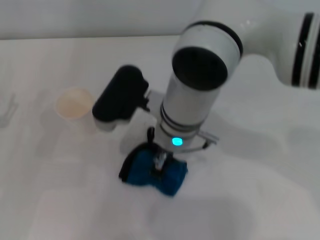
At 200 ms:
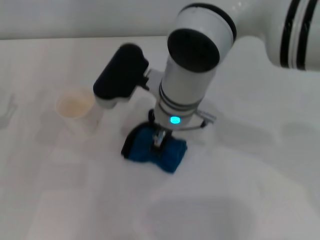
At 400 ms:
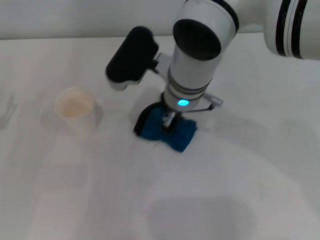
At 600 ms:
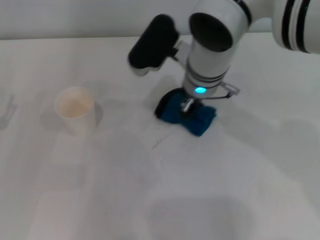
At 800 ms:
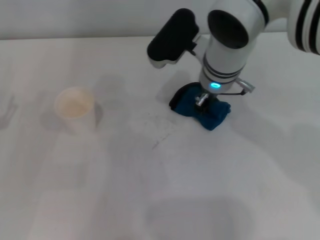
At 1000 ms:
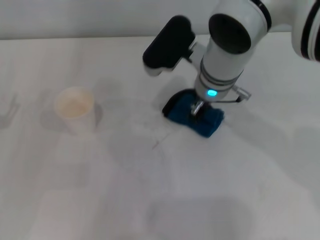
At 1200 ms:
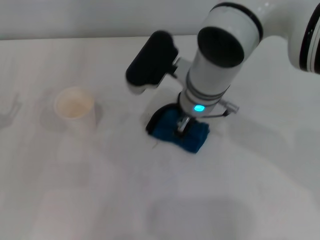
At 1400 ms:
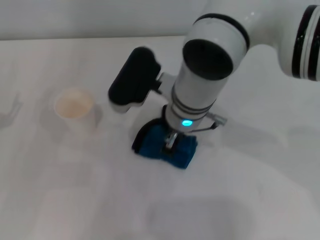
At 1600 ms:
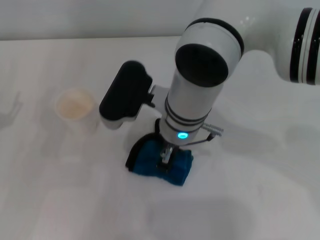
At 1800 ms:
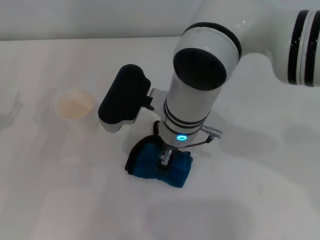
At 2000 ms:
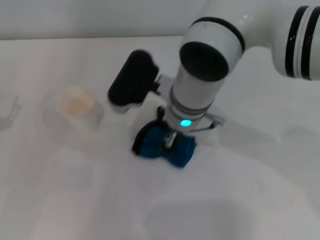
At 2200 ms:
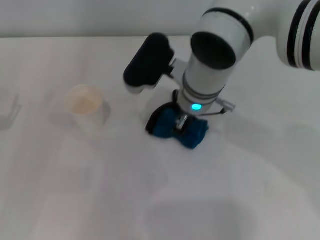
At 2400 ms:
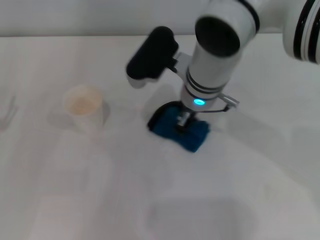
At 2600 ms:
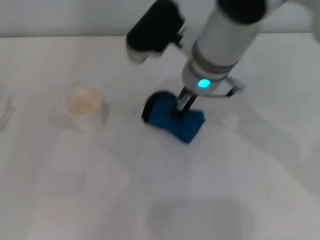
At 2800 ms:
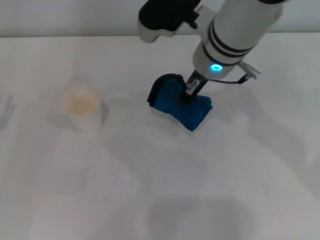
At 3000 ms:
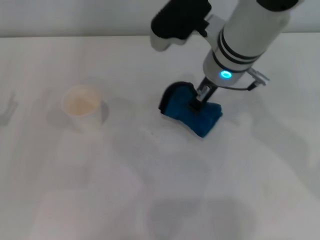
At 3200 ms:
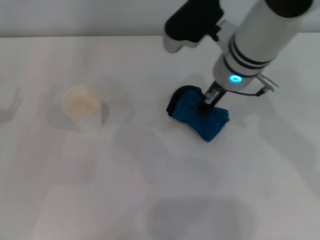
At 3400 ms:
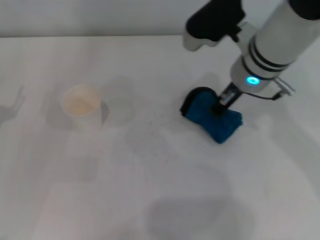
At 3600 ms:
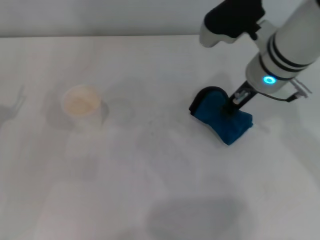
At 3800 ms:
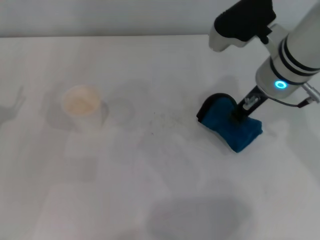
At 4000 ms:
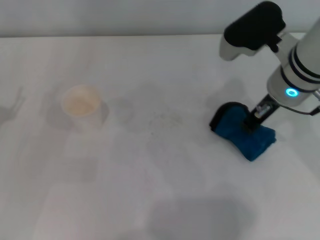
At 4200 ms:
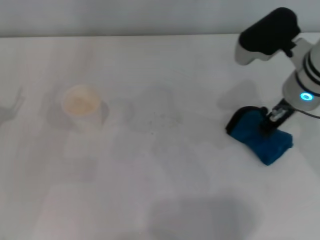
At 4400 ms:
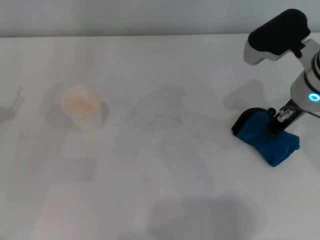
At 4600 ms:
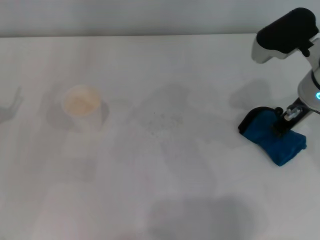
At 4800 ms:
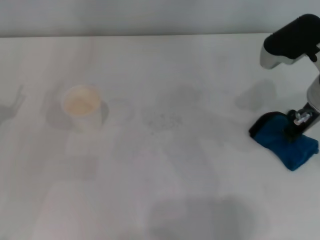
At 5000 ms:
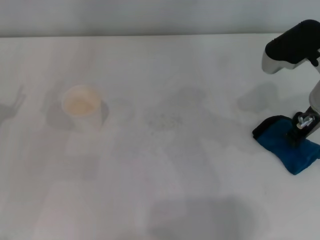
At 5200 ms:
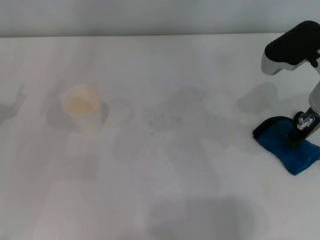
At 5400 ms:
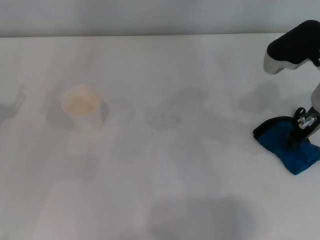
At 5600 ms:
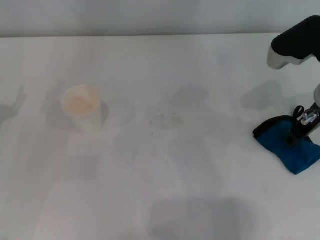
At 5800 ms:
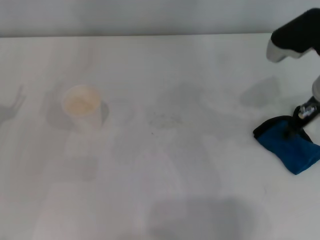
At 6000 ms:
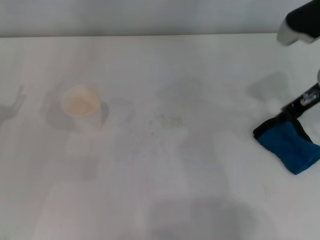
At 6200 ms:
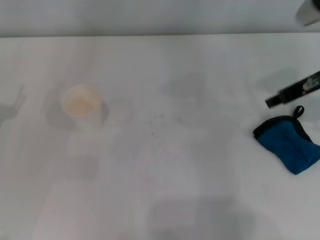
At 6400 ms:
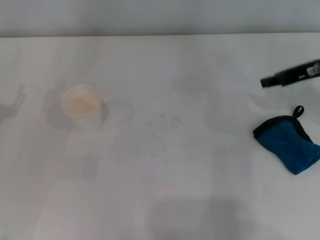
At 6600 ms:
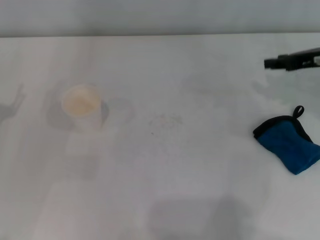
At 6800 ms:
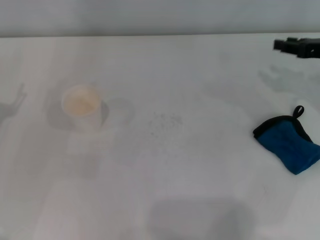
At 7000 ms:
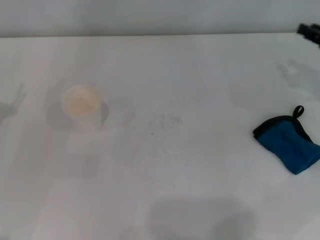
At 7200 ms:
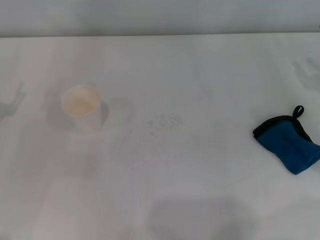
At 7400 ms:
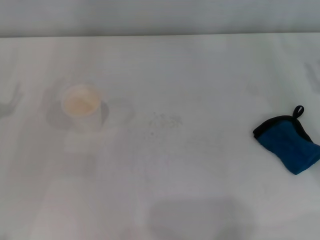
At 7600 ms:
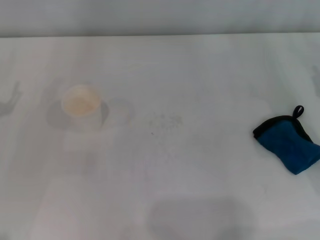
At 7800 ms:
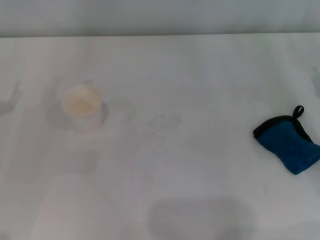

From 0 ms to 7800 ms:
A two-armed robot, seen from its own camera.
Step, from 0 ms to 4800 ms: Wipe the stains off the table with the right gripper.
Step, from 5000 ms to 5600 ms: Place the rag on the table with the right gripper.
From 0 ms to 1600 ms: The right gripper travels forward and back again, roughly 10 cm each way.
From 1600 ms to 3200 ms: The right gripper travels to the right and forward by approximately 10 cm.
From 3200 ms to 4600 ms: The right gripper goes about 10 cm to the right.
From 4600 ms to 6200 ms: The right gripper shifts about 5 cm to the right, and opens.
From 6200 ms to 7800 ms: The right gripper goes some 15 cm downward, to the right and backward.
